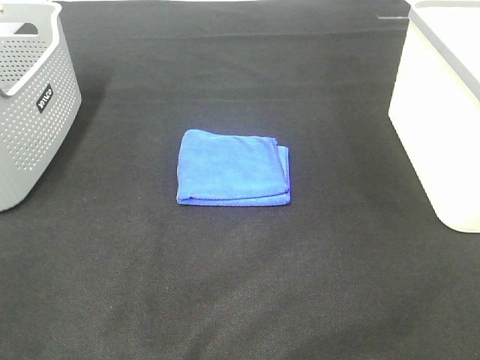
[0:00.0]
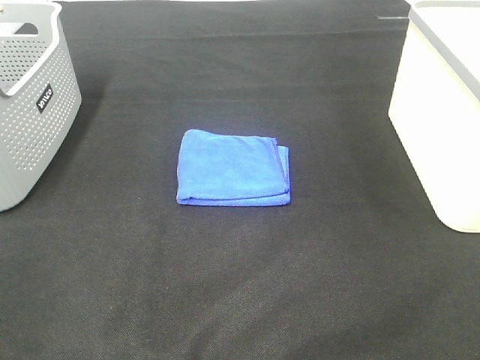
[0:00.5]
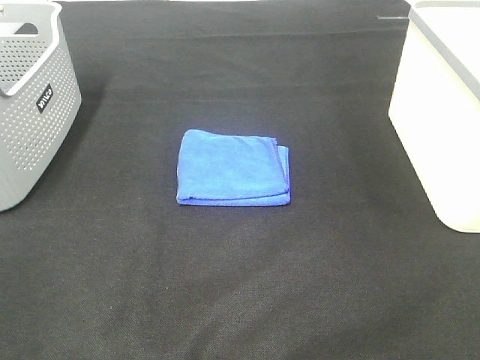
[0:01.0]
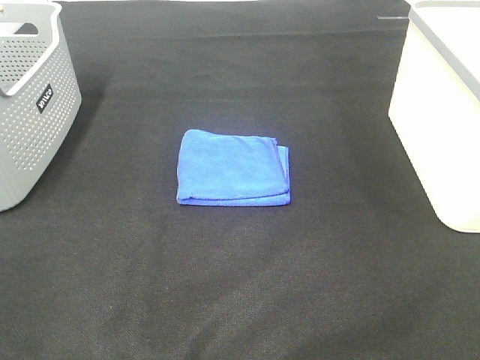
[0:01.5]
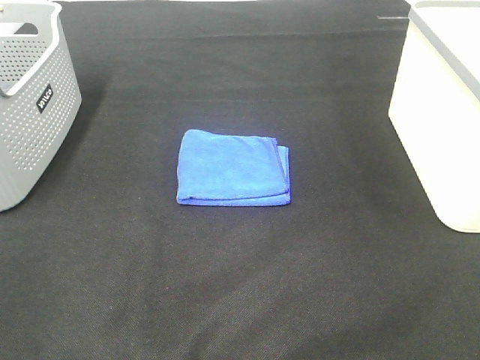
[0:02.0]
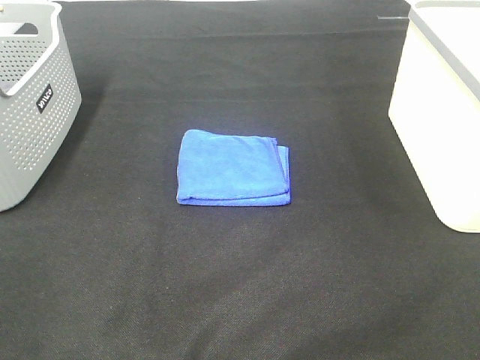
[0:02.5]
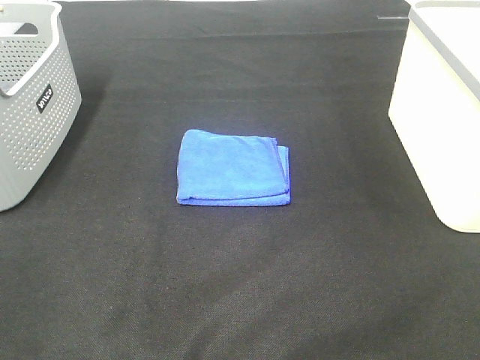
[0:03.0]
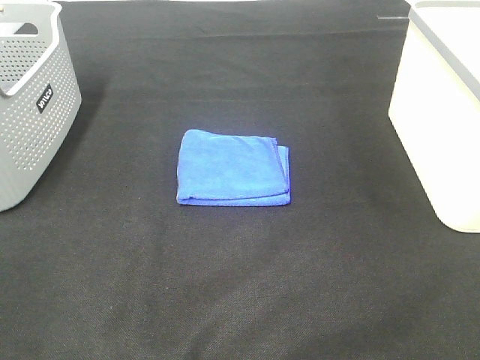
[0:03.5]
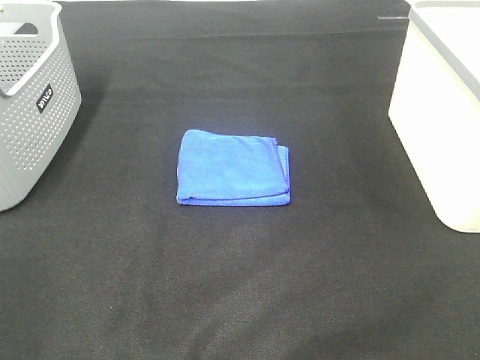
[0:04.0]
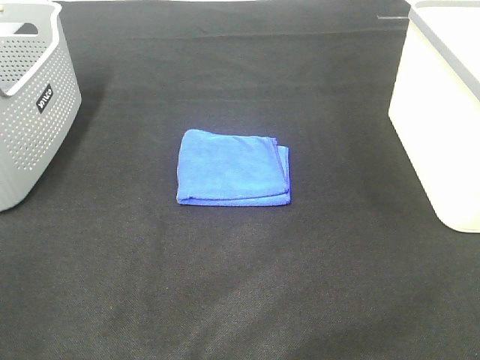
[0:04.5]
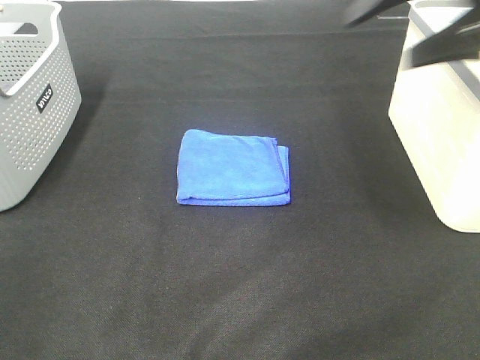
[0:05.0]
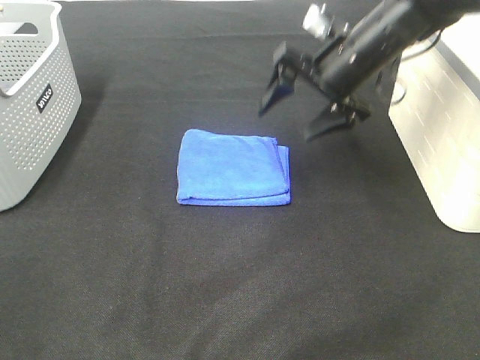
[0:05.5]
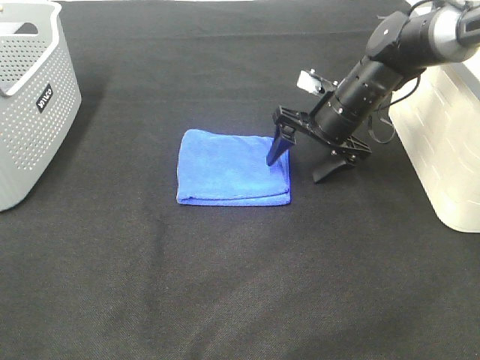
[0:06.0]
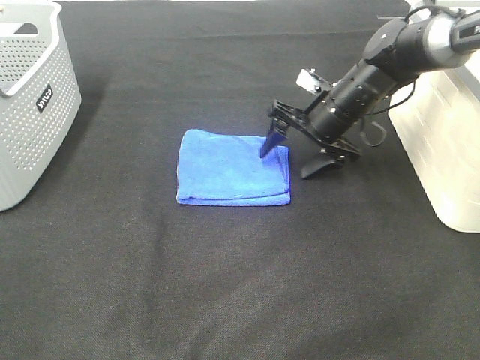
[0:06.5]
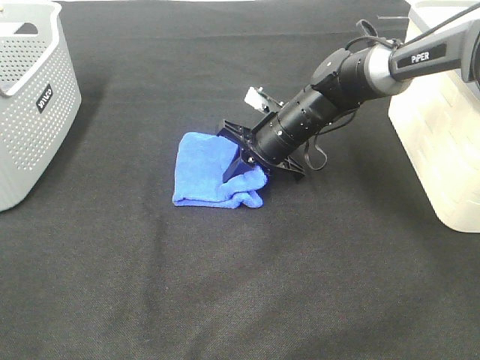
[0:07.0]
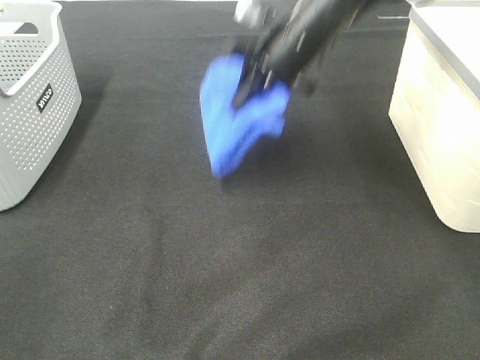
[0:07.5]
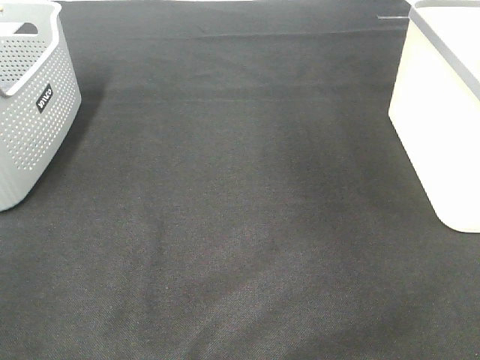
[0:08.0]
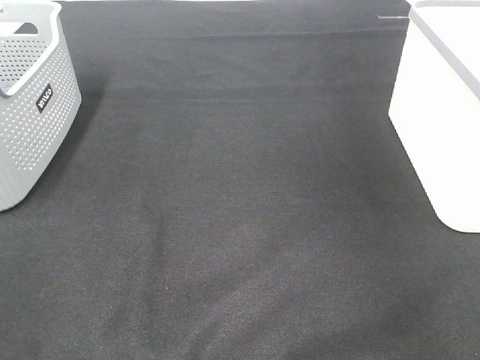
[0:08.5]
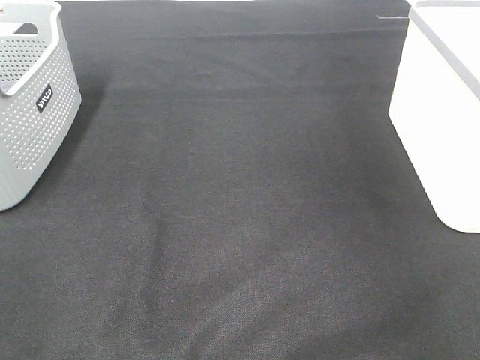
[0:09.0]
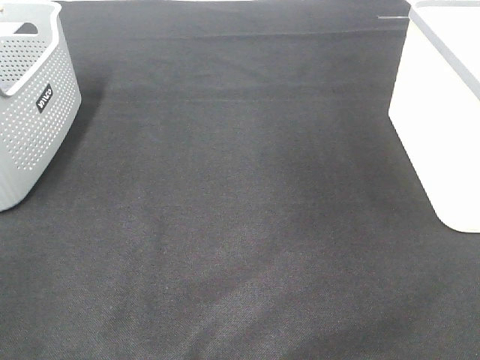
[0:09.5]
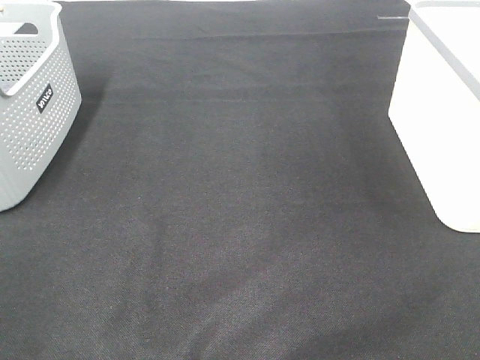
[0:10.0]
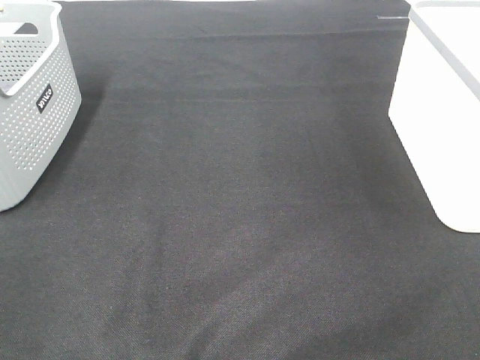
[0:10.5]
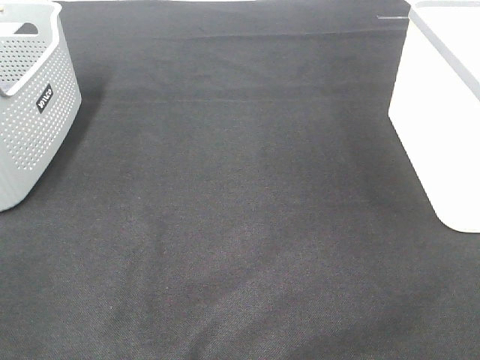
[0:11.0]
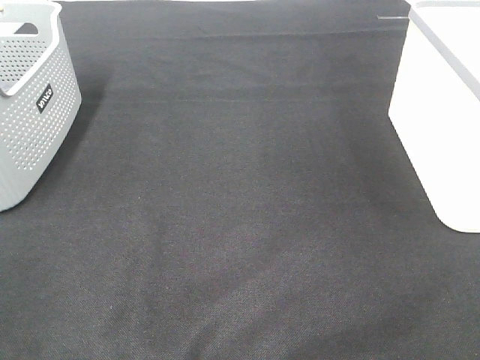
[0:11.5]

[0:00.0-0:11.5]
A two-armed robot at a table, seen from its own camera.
Step, 0:00.0 to 0:07.0: Right hand: grab the folded blue towel.
Step, 0:07.5 to 0:08.5: Right hand: place the blue towel in right basket.
0:00.0 to 0:02.0: Both grippers stay put.
0:04.0 to 0:06.0: The right gripper travels forward, downward and to the left by roughly 50 cm.
0:06.0 to 0:07.5: The right gripper is displaced upward and to the left by some 15 cm, and closes its fingers.
0:07.5 to 0:09.5: The right gripper shifts approximately 30 cm to the right, upward and backward, and opens its fingers.

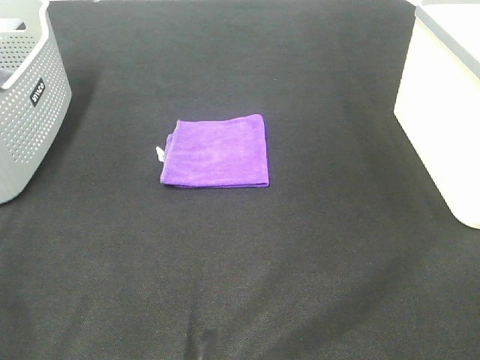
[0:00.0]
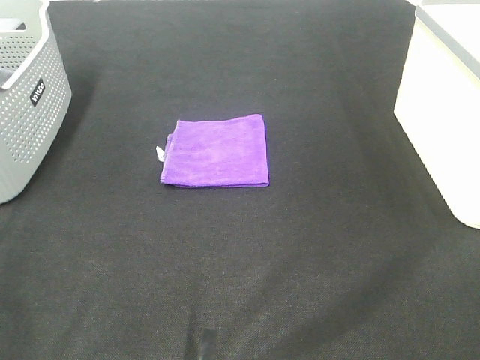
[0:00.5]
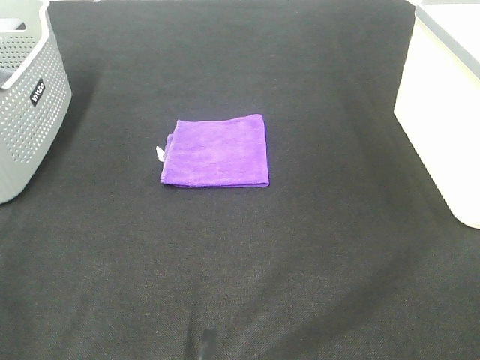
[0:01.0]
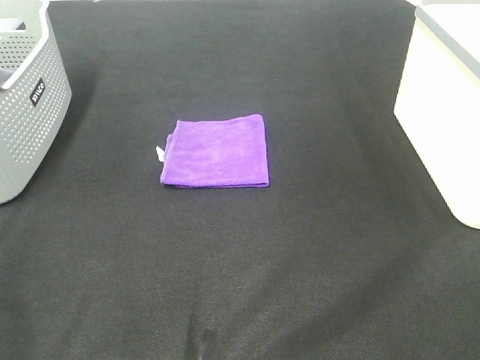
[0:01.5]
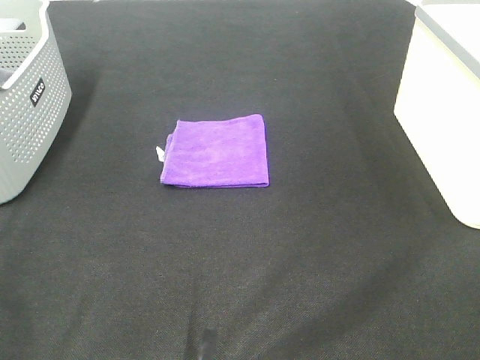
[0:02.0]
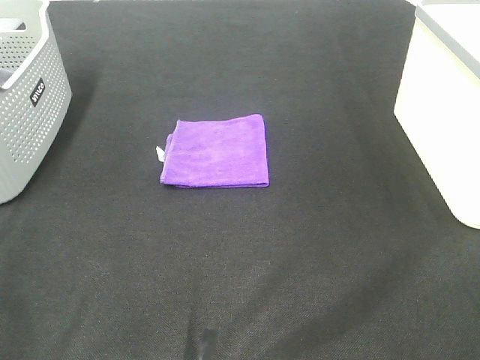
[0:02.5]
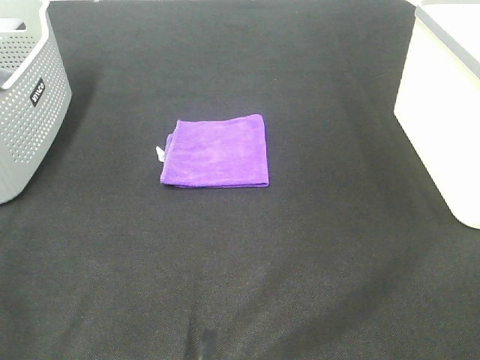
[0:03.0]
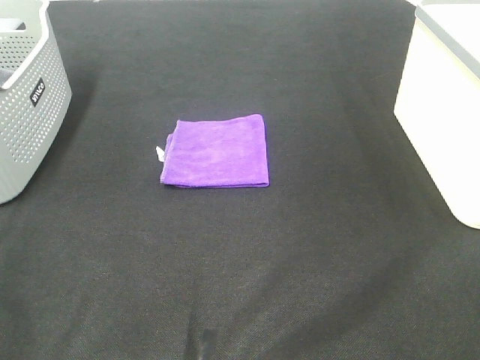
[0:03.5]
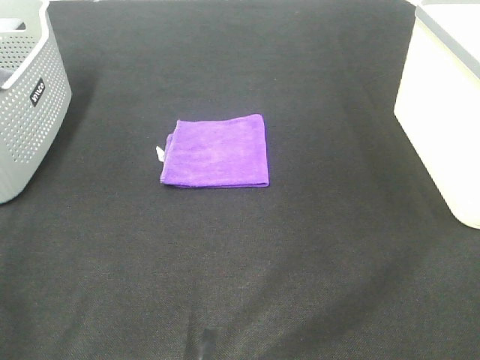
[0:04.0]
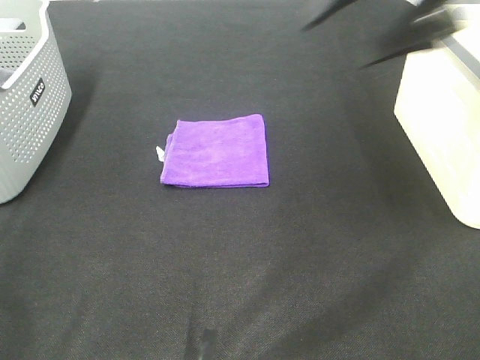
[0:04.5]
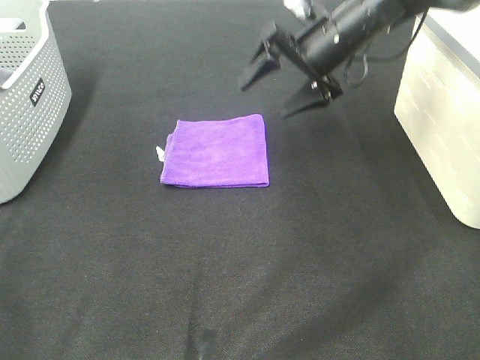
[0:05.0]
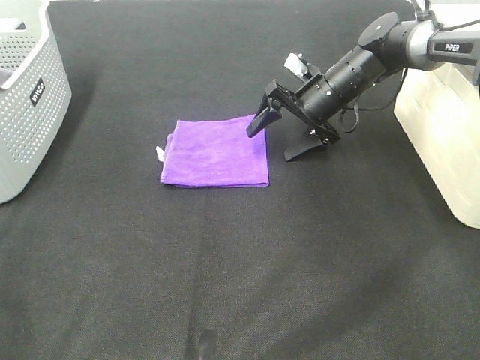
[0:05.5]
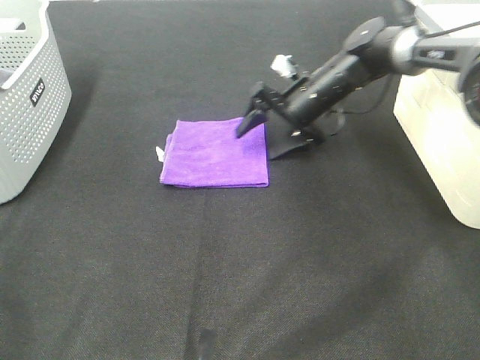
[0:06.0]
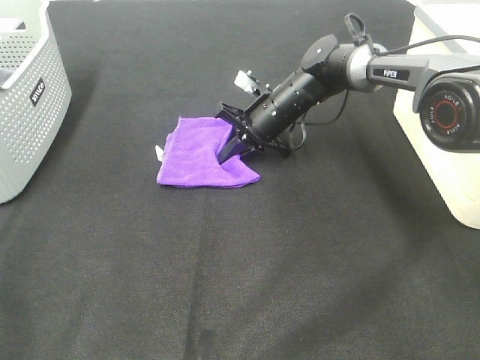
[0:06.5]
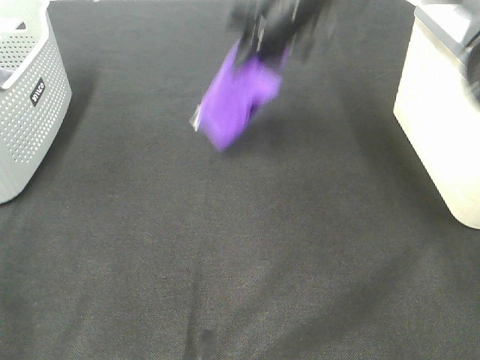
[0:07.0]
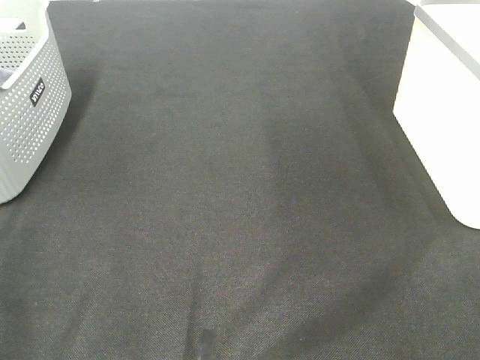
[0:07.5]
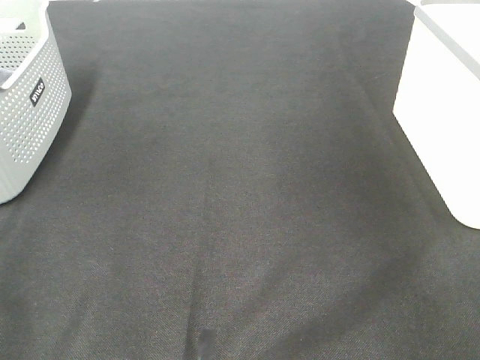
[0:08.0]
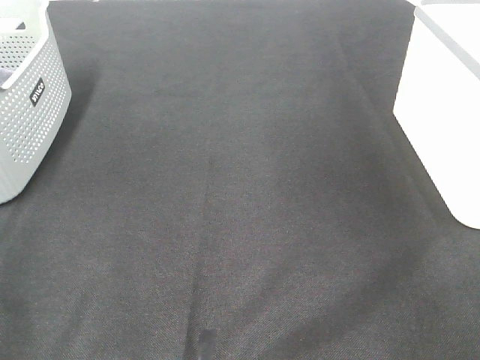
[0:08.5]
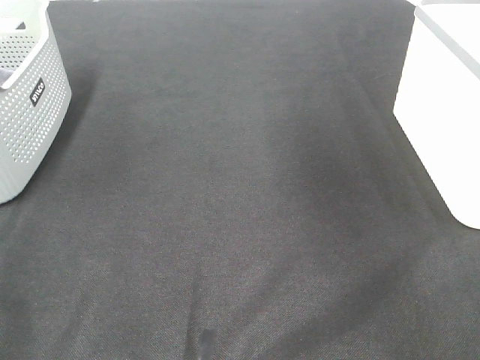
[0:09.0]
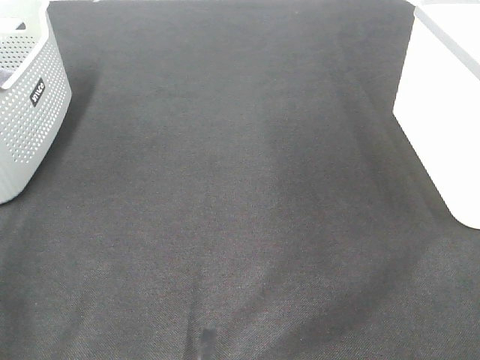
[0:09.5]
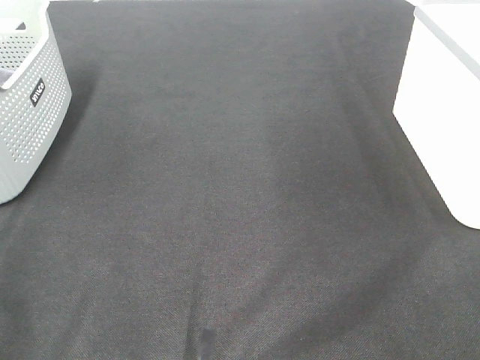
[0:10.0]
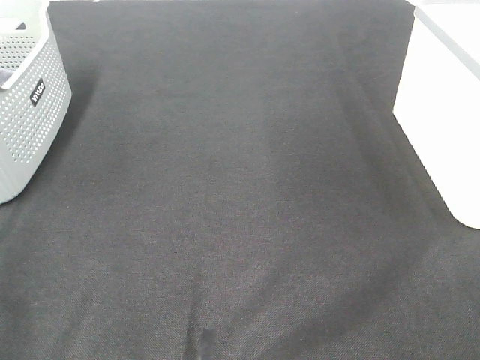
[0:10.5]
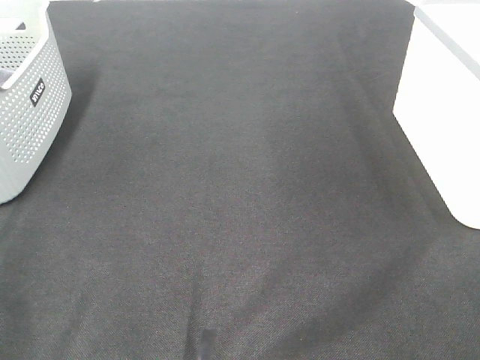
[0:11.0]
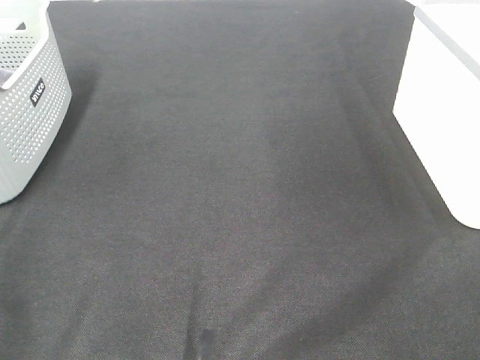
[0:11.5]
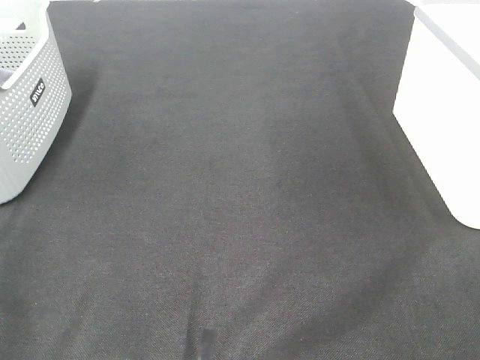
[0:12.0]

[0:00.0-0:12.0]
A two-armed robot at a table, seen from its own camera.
Step, 0:00.0 to 0:06.5: Right hand: grab the folded purple towel.
Step, 0:07.0 to 0:08.0: Right hand: place the purple towel in right basket.
0:00.0 to 0:02.0: Both grippers stay about where they are.
0:04.0 to 0:06.0: The right gripper goes some 50 cm forward, downward and to the left.
0:06.0 to 0:08.0: The right gripper heads upward and to the right, covering some 40 cm, and closes up.

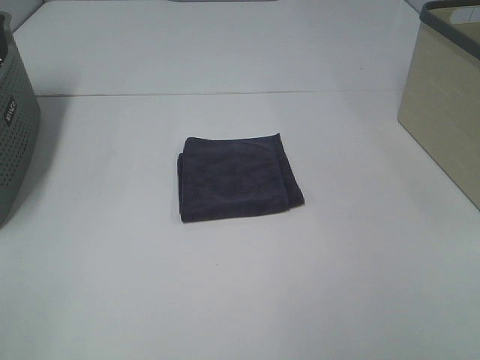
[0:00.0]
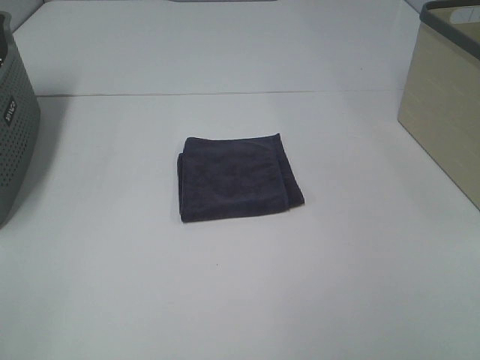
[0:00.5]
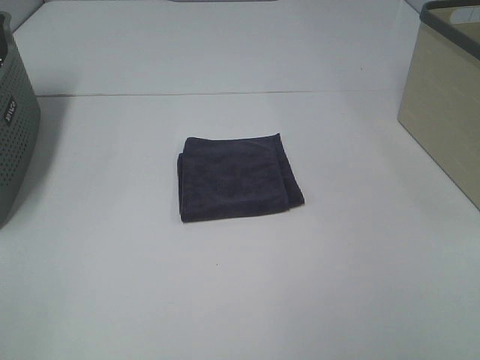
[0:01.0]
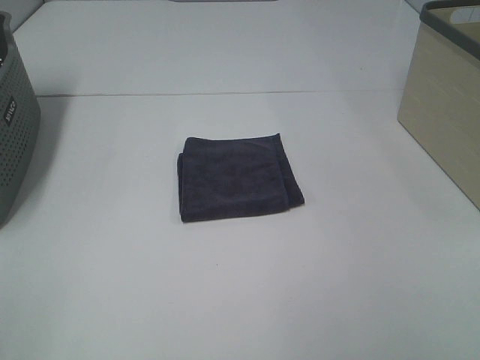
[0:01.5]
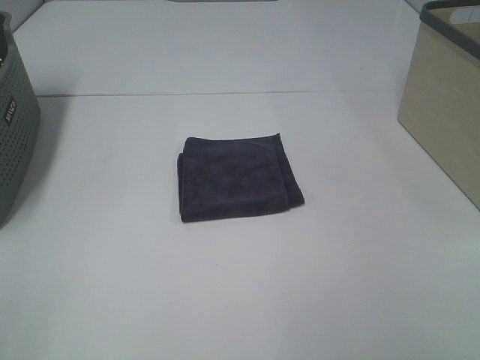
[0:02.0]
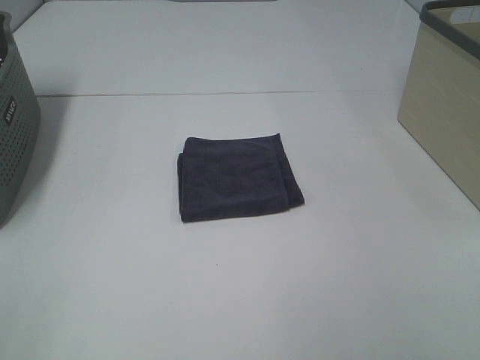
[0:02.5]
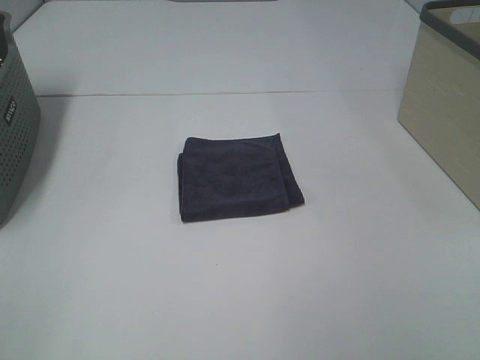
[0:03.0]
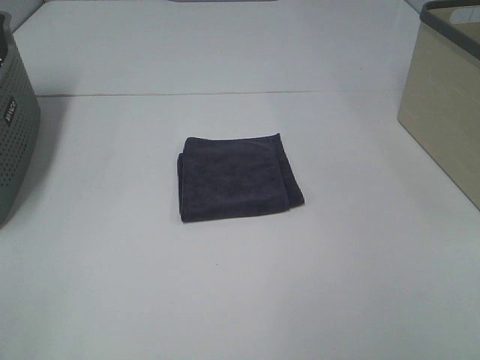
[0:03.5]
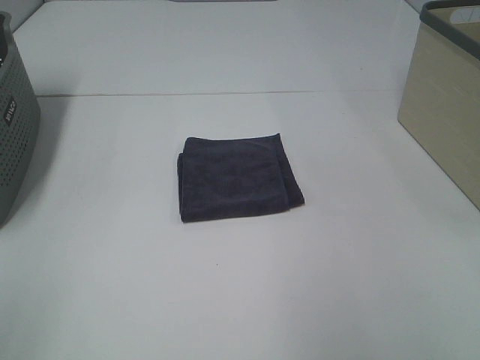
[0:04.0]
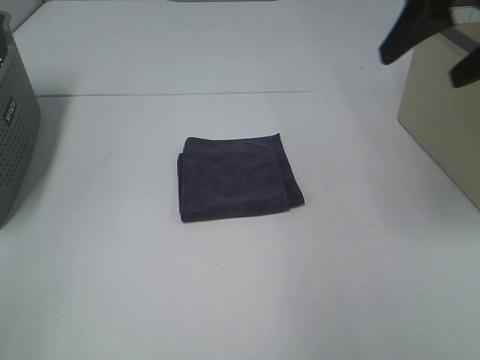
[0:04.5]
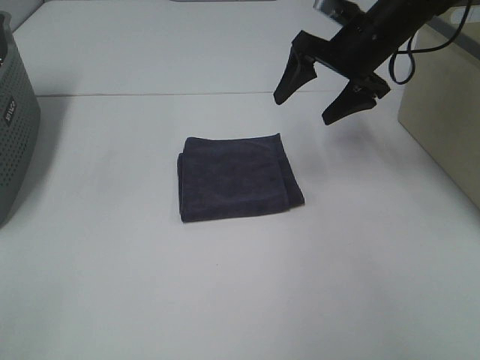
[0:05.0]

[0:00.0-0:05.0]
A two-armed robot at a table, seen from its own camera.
0:00.0 to 0:02.5: Both grippers stay about where they are.
0:02.5 to 0:05.0: The right gripper heads forward, covering some 40 cm.
